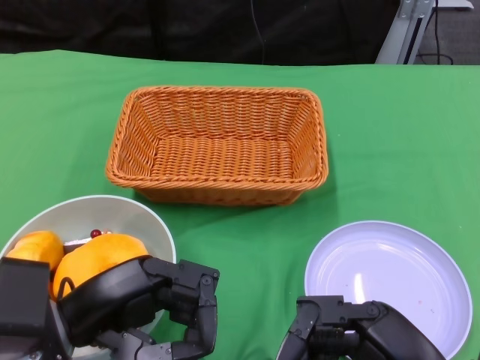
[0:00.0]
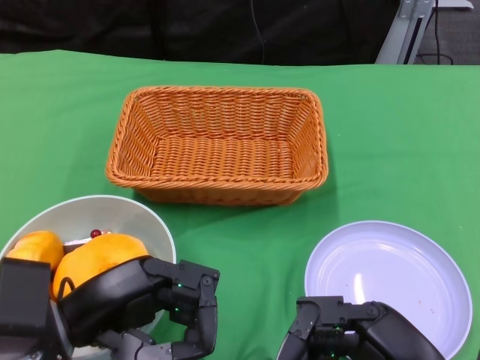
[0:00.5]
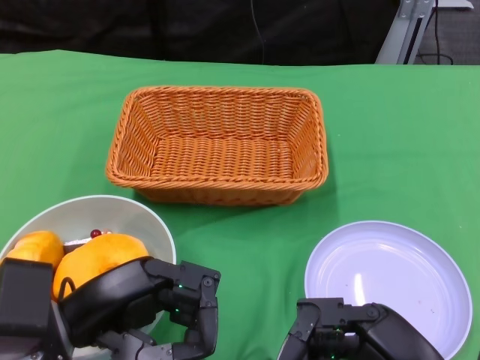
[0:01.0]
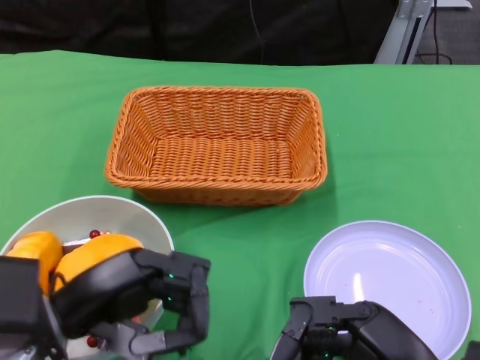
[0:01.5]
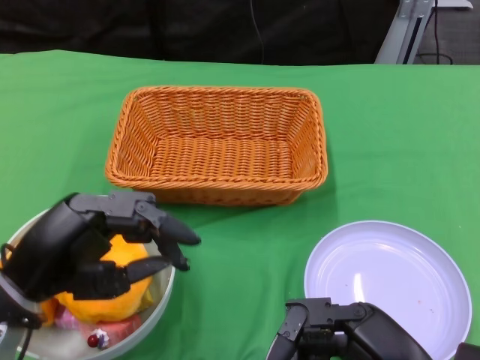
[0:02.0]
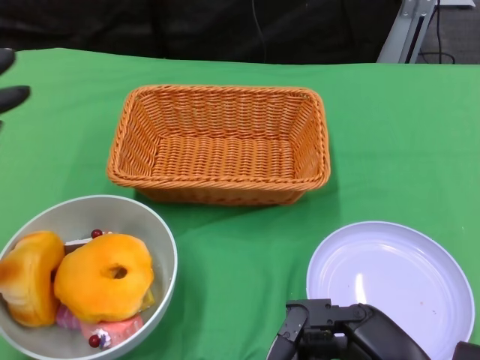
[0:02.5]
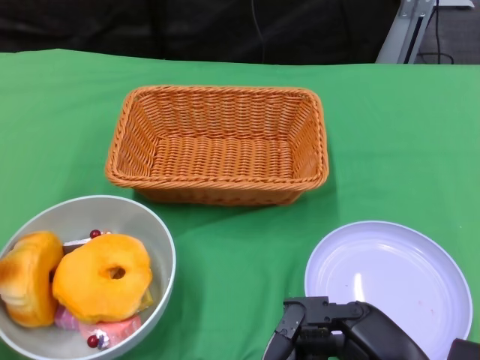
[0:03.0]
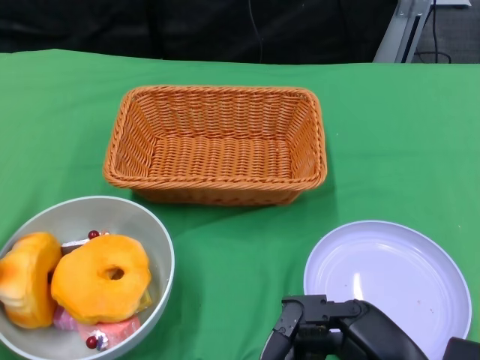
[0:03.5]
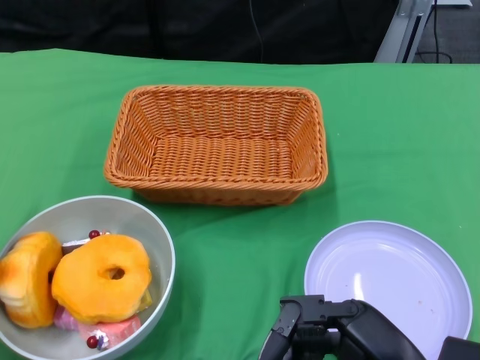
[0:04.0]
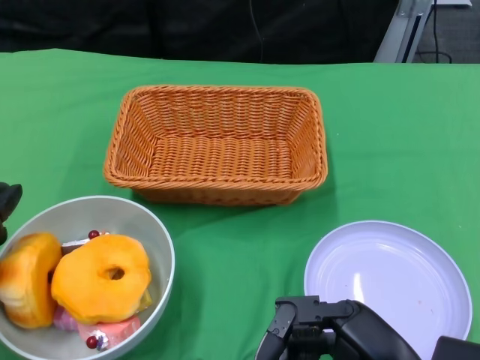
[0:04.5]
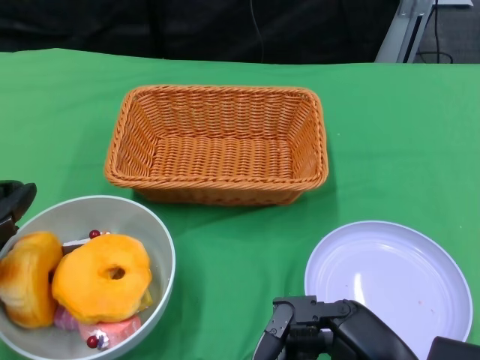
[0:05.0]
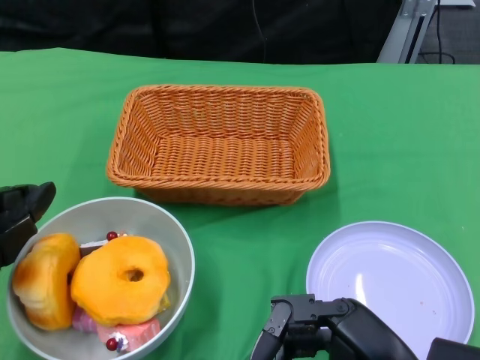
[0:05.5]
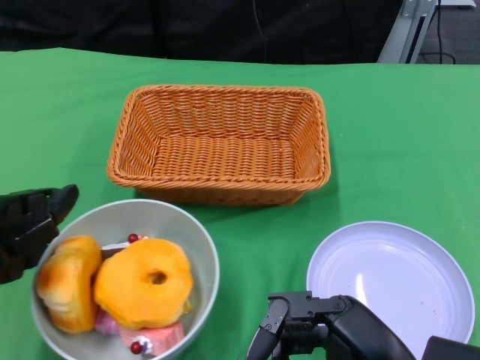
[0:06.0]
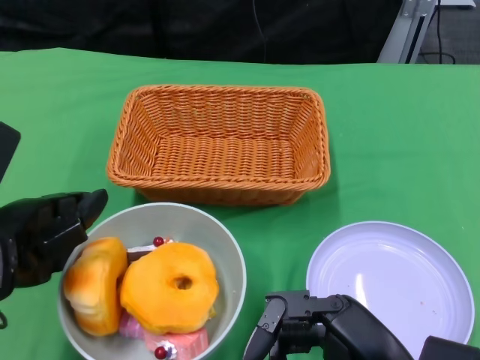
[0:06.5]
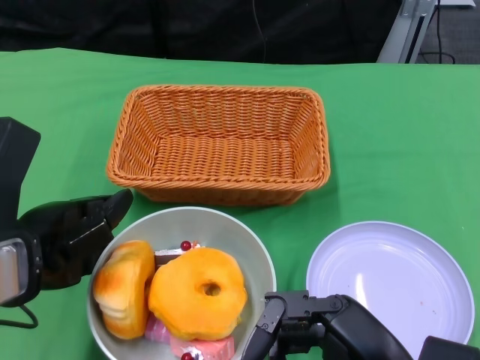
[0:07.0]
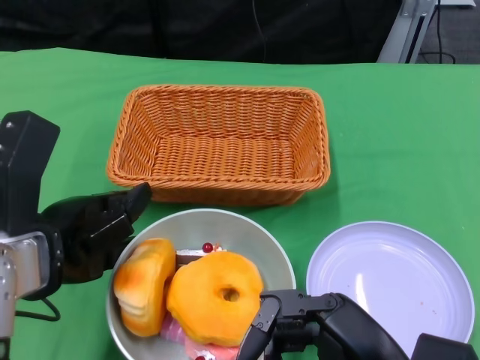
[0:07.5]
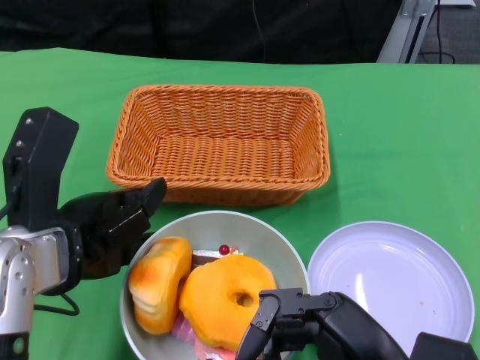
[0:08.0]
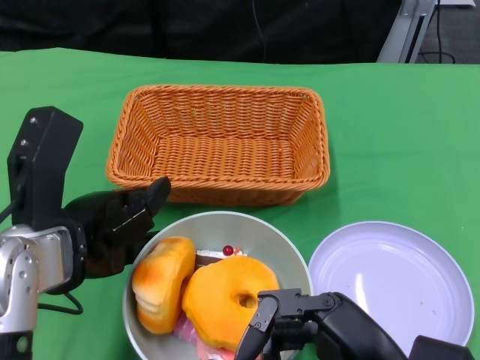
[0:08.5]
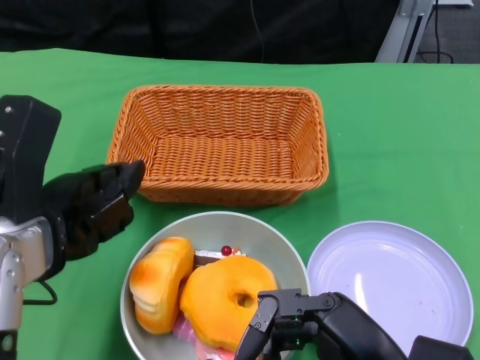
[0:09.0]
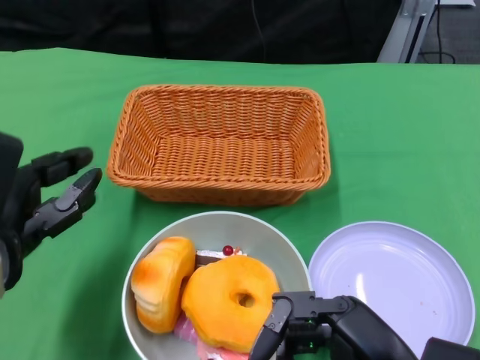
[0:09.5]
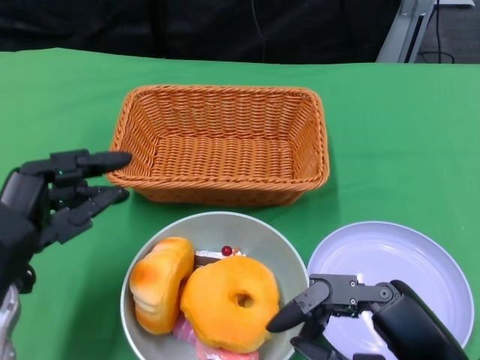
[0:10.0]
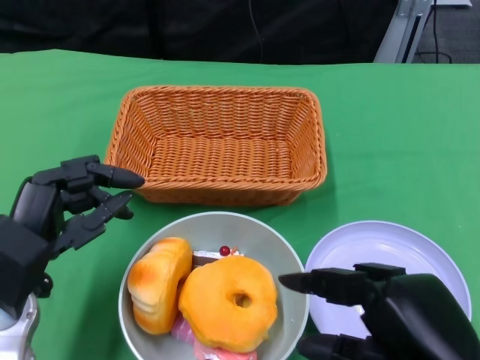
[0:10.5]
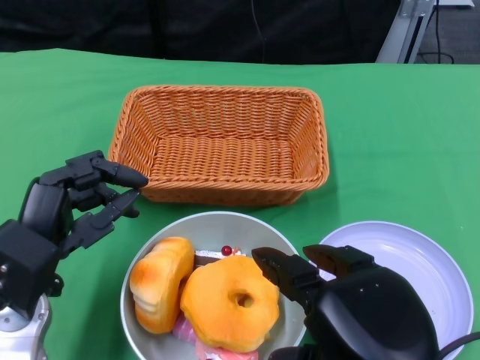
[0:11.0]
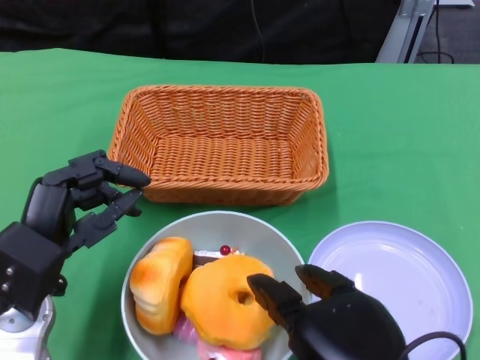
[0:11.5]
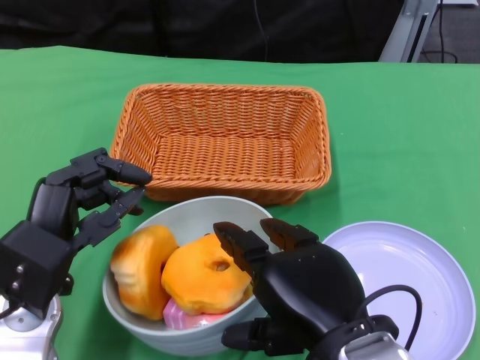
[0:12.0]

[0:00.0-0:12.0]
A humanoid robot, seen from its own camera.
Step, 0:00.0 to 0:09.0: Push the bowl to the center of the table using the left gripper.
0:02.0 to 0:04.0: The left hand is displaced to the left by about 10 cm.
0:04.0 to 0:06.0: The left hand shifts some 5 cm to the right.
0:06.0 to 0:08.0: The left hand goes roughly 5 cm to the right.
0:08.0 to 0:10.0: The left hand moves about 5 cm.
0:10.0 to 0:12.0: The right hand goes some 10 cm to the left.

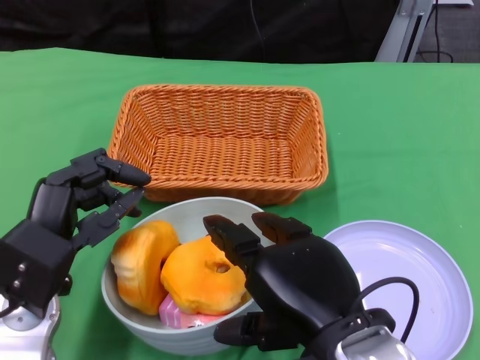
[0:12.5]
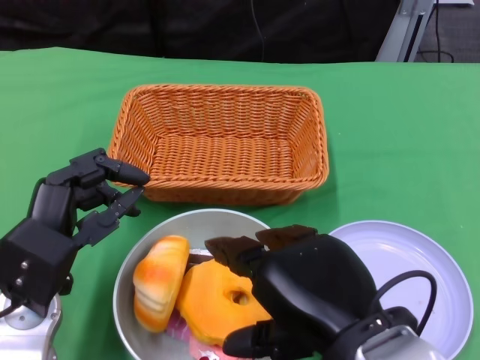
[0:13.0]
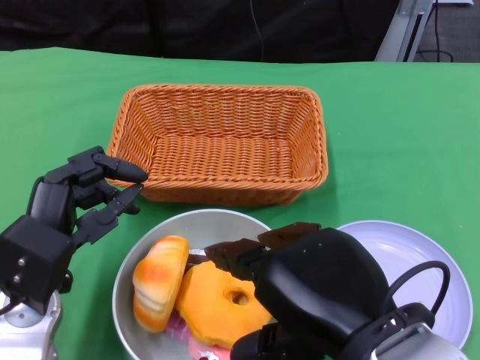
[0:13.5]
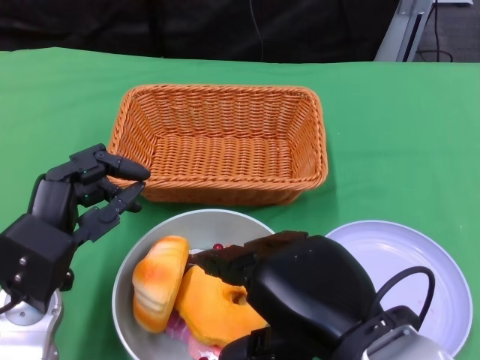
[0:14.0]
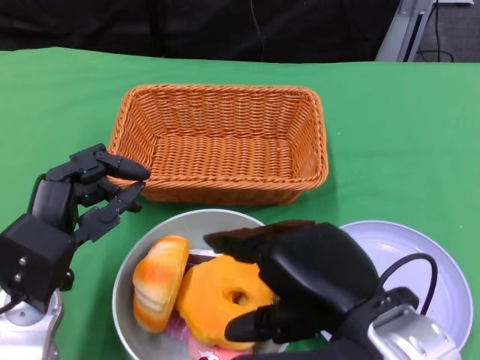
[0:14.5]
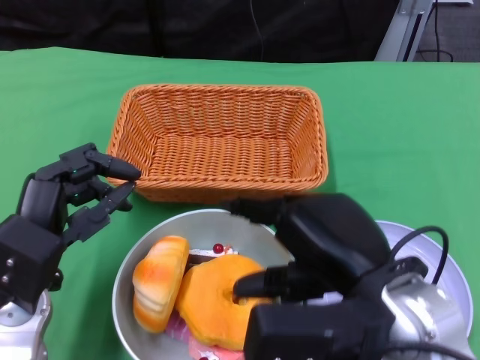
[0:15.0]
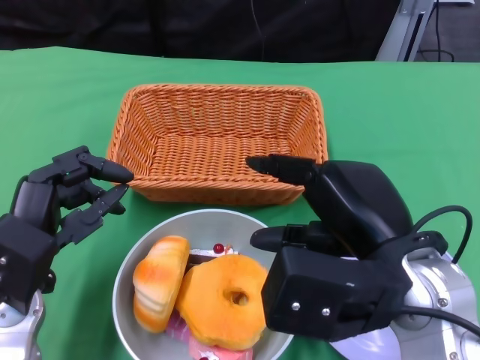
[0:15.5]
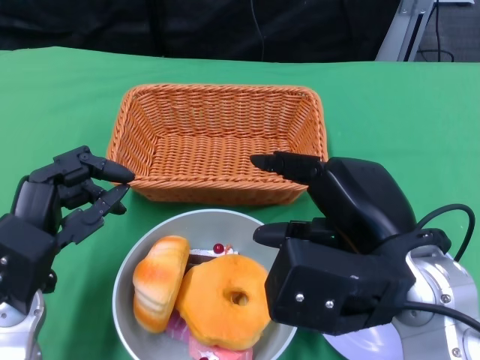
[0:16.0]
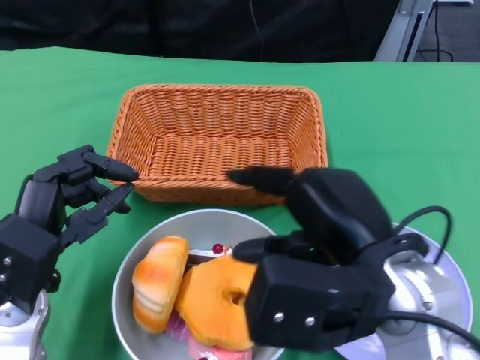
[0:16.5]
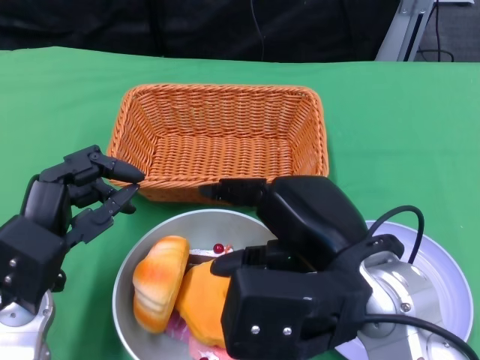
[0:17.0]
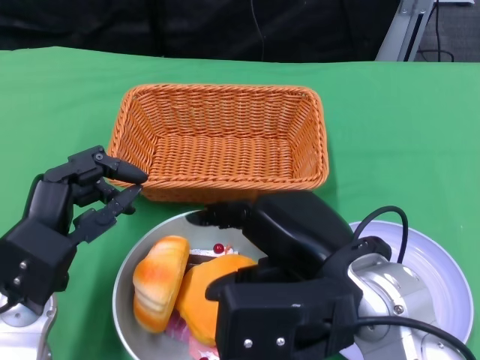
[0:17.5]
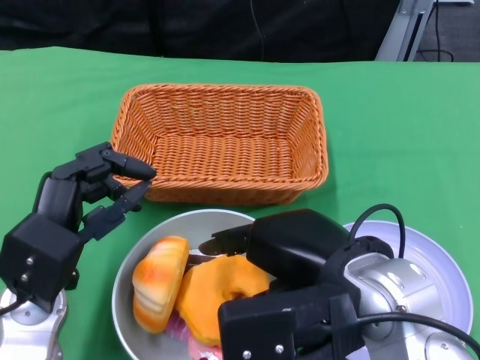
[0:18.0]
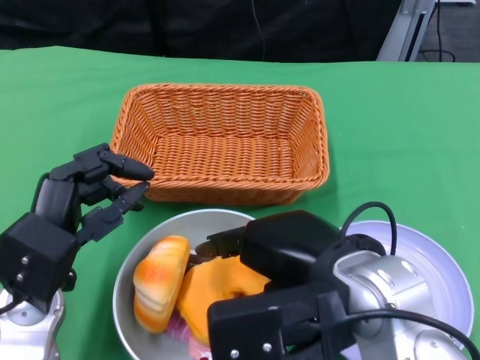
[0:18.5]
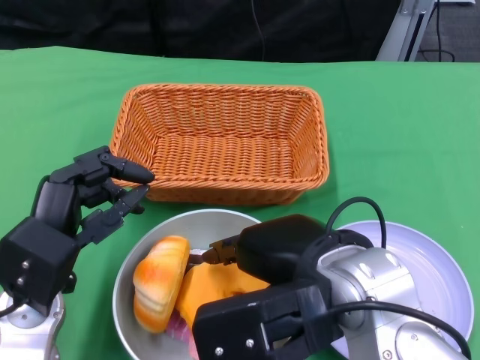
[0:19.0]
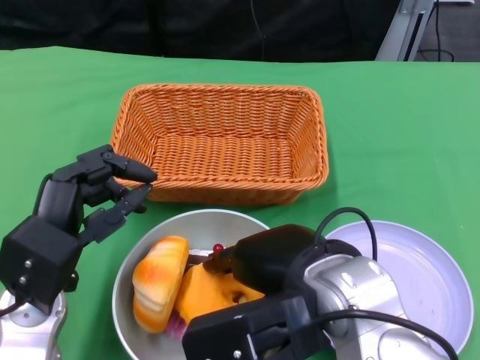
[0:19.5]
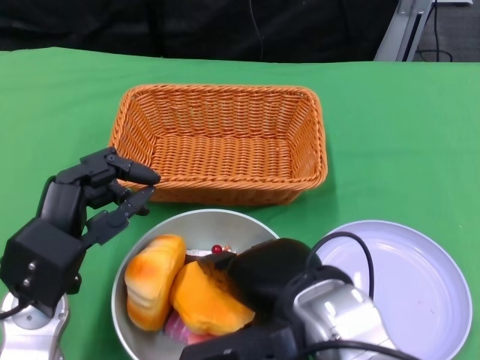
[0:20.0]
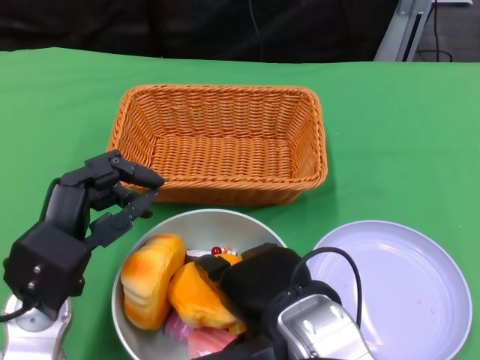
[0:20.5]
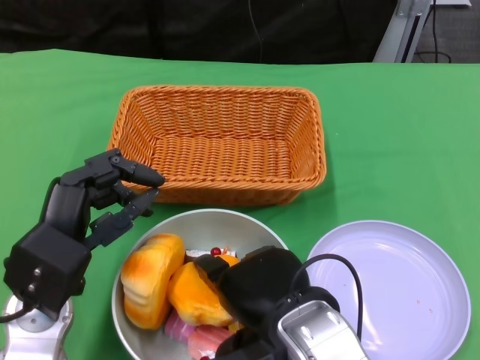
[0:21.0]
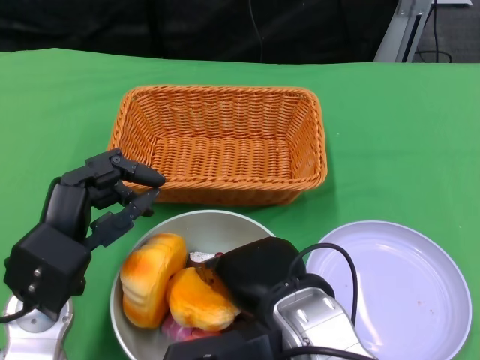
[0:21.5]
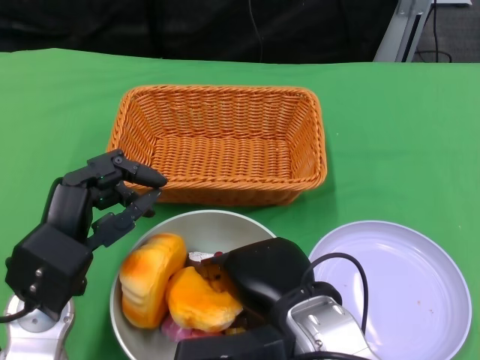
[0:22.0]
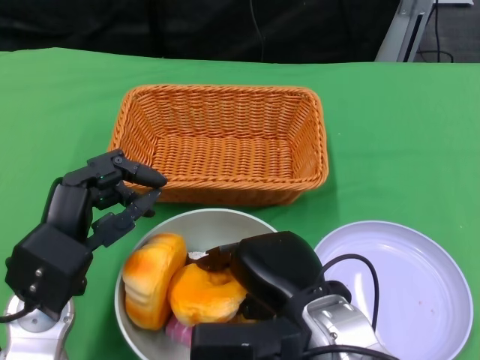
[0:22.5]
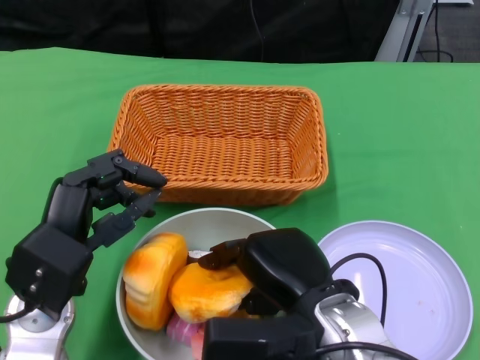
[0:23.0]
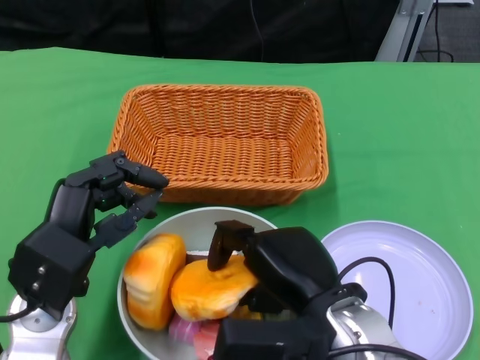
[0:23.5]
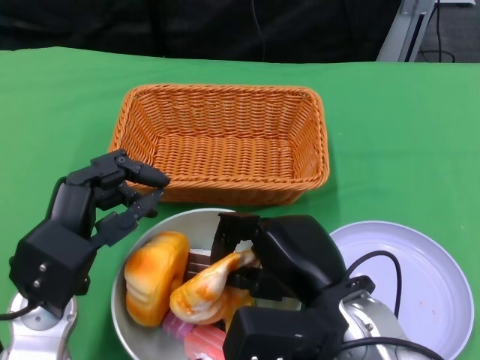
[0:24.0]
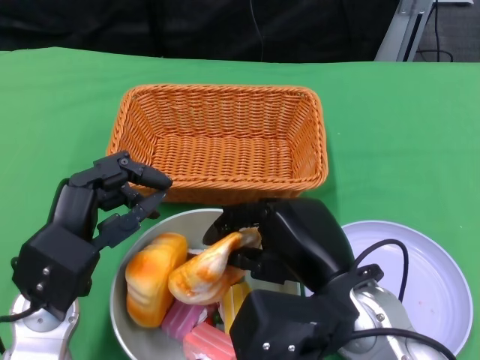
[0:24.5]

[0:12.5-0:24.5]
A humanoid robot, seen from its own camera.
0:18.5 to 0:20.5: The right hand ends up some 5 cm from where it was.

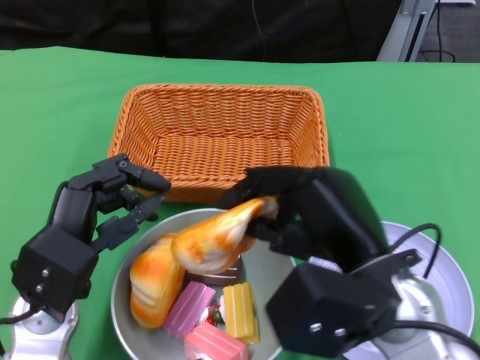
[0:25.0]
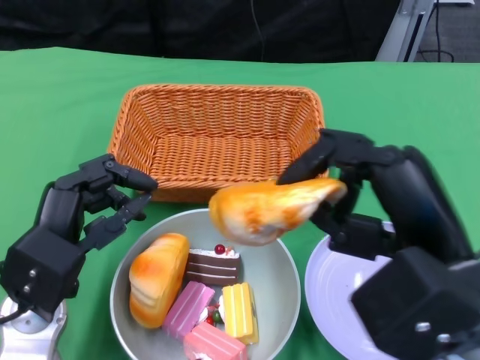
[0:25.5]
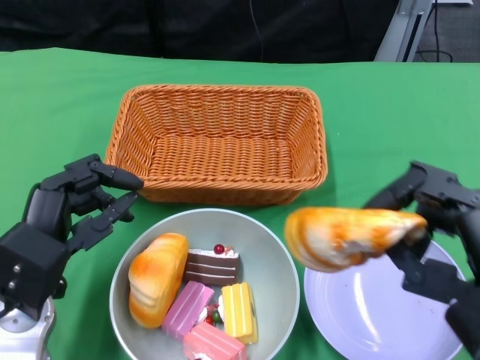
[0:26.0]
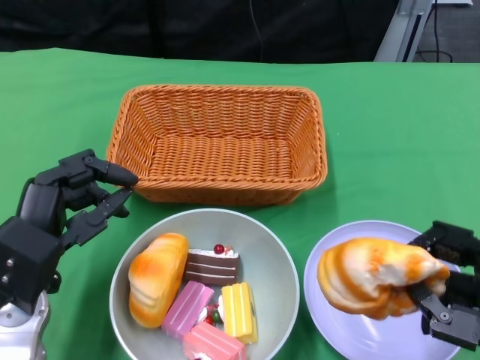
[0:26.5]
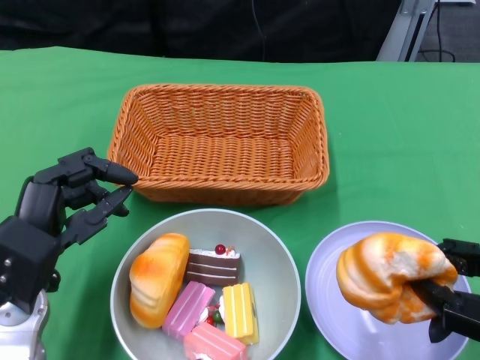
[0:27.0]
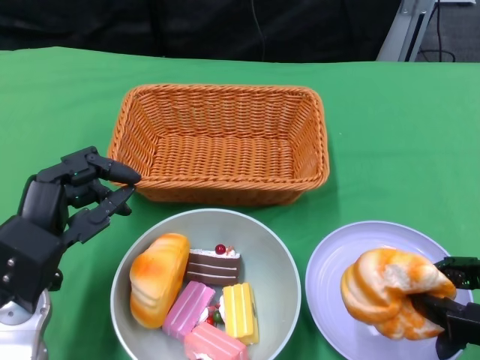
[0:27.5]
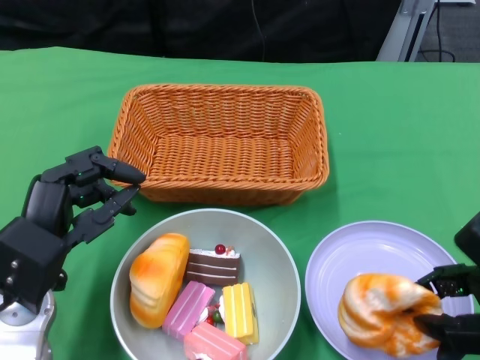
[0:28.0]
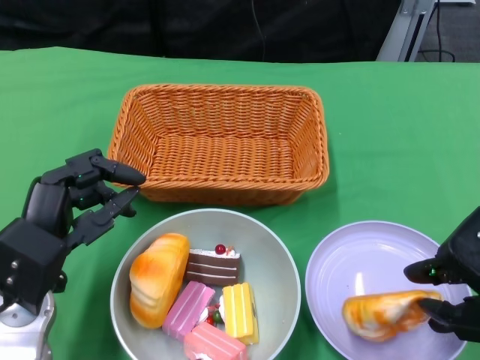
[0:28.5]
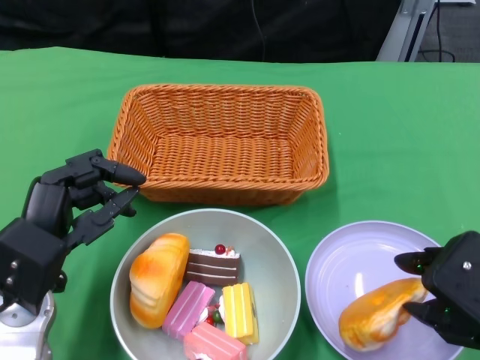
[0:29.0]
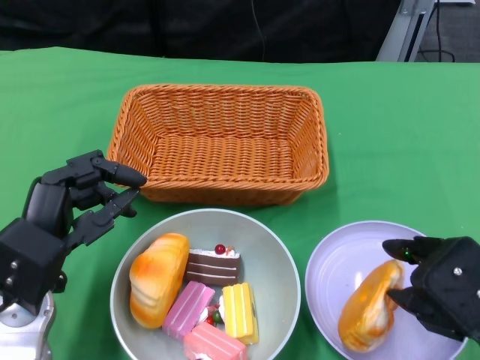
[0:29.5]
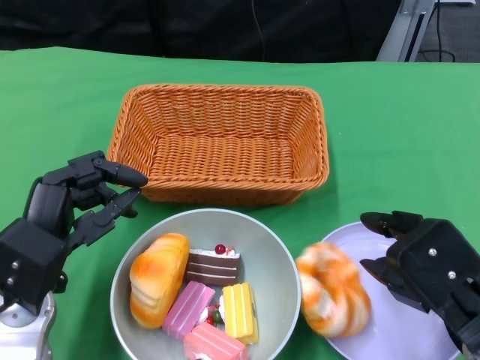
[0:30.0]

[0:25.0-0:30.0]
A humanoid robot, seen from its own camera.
0:25.0 to 0:27.5: The right hand goes about 15 cm to the right.
0:27.5 to 0:30.0: The right hand shifts roughly 5 cm to the left.
